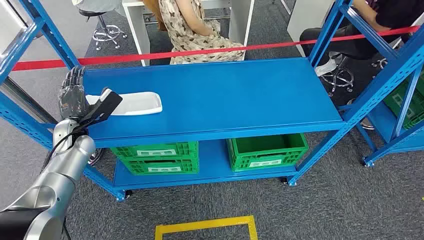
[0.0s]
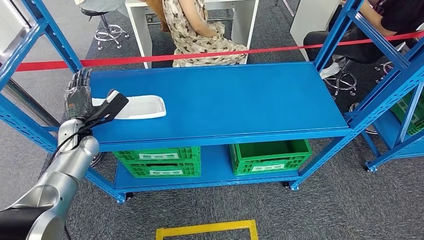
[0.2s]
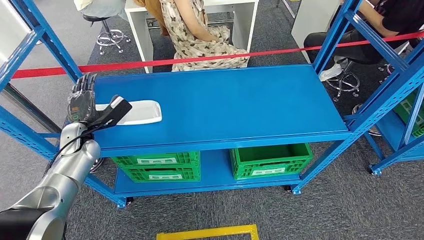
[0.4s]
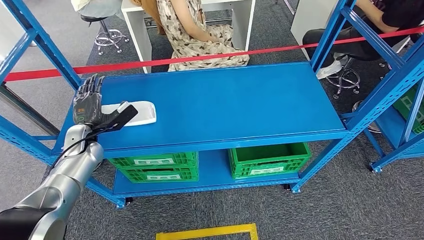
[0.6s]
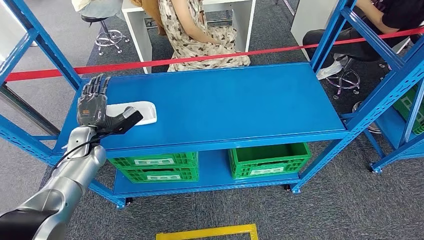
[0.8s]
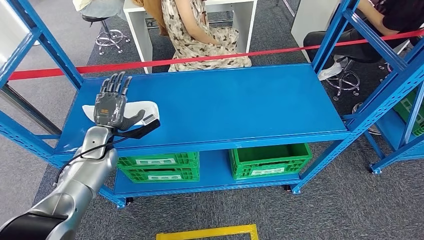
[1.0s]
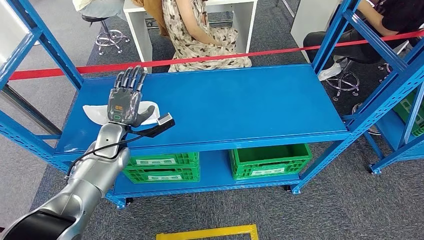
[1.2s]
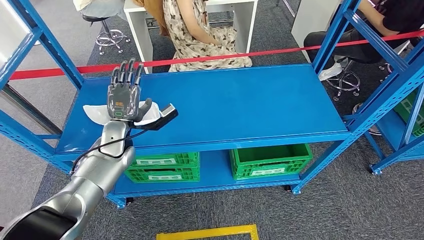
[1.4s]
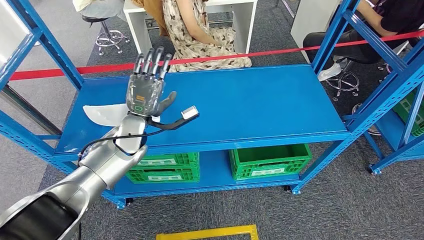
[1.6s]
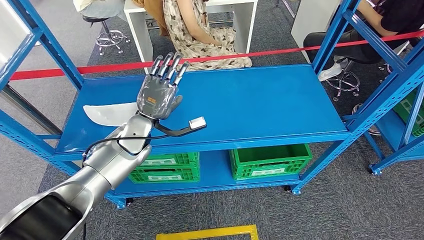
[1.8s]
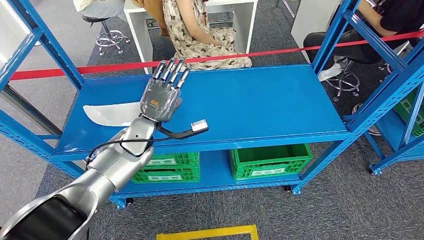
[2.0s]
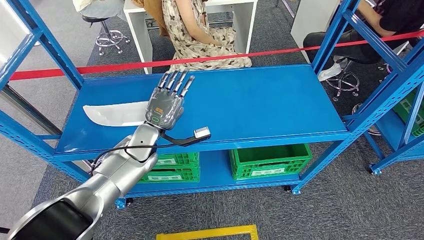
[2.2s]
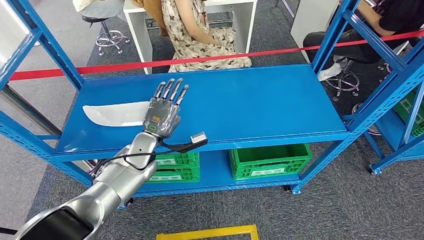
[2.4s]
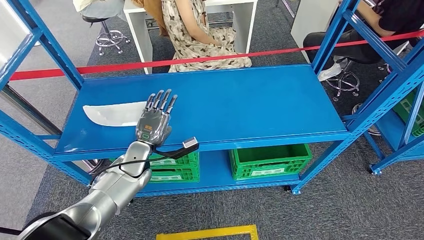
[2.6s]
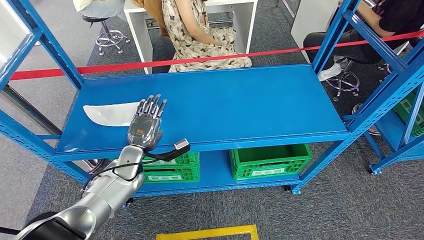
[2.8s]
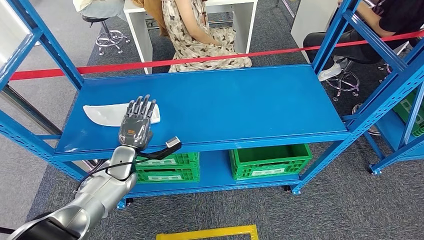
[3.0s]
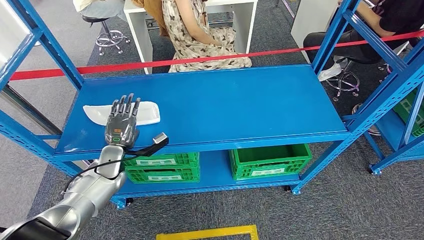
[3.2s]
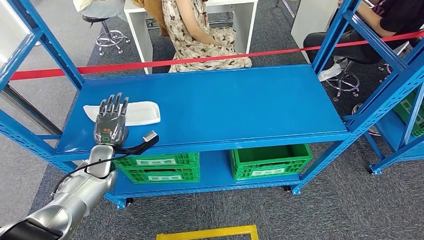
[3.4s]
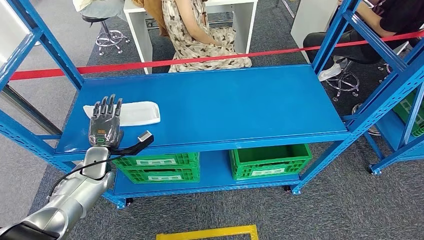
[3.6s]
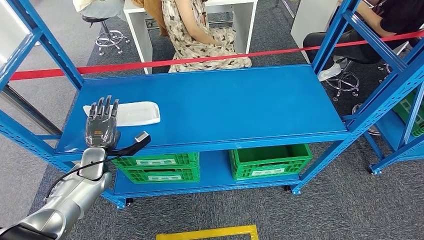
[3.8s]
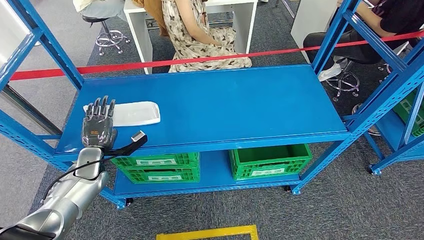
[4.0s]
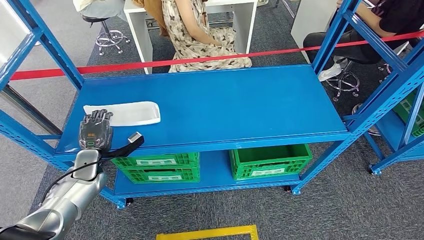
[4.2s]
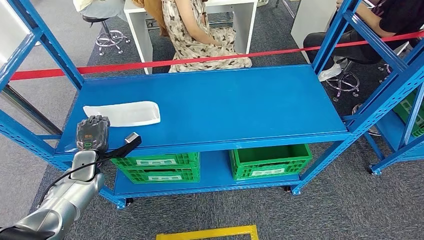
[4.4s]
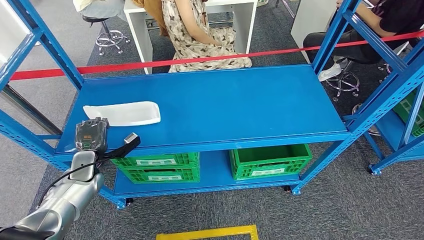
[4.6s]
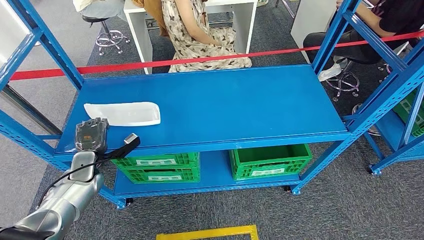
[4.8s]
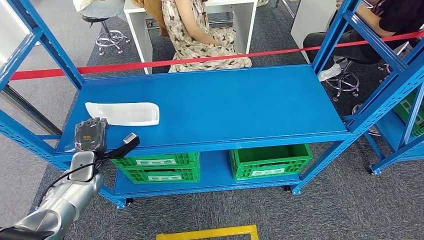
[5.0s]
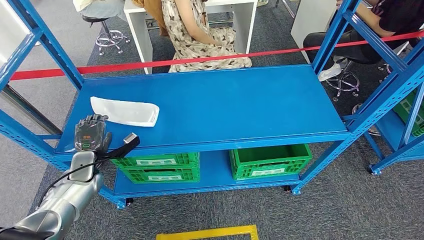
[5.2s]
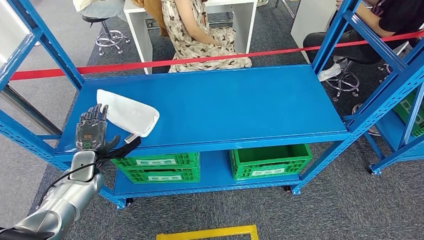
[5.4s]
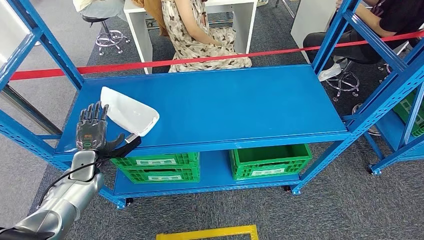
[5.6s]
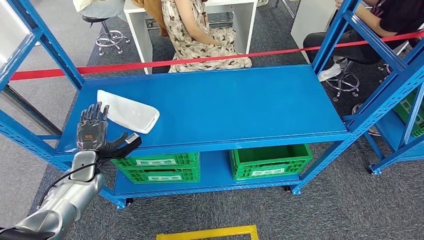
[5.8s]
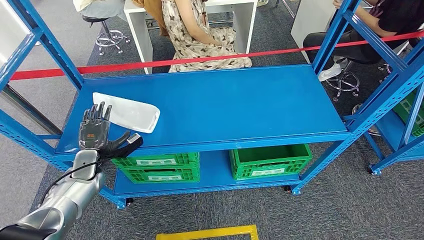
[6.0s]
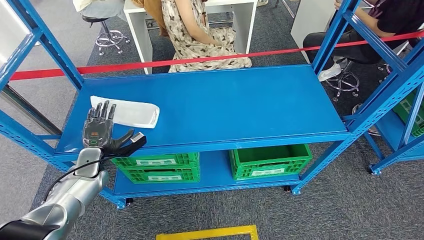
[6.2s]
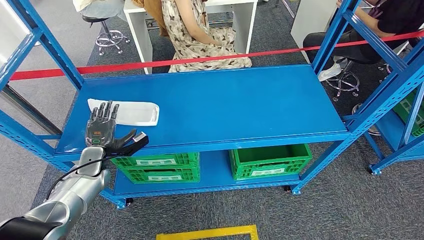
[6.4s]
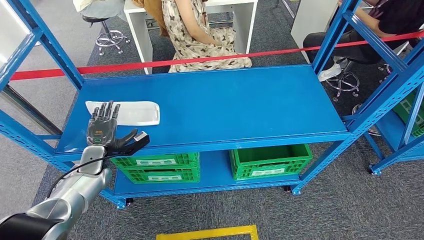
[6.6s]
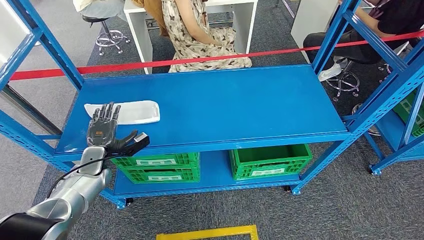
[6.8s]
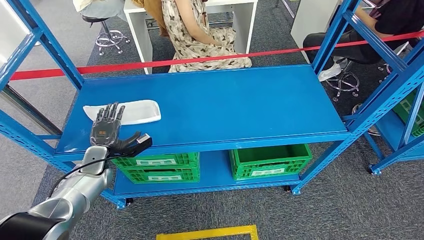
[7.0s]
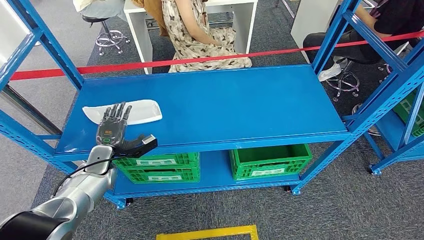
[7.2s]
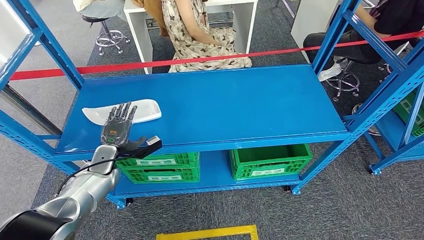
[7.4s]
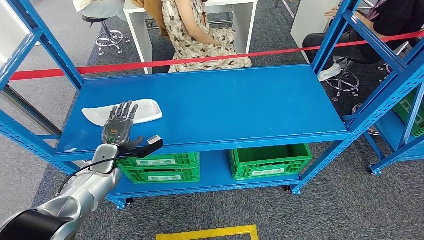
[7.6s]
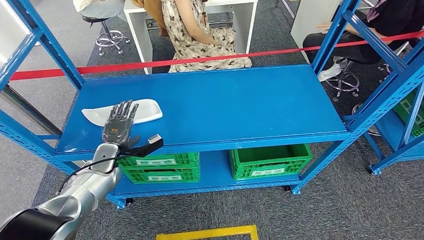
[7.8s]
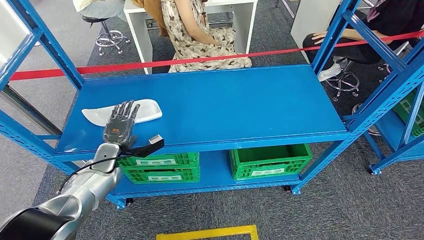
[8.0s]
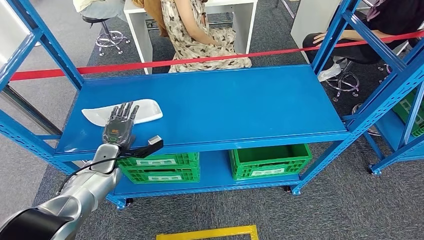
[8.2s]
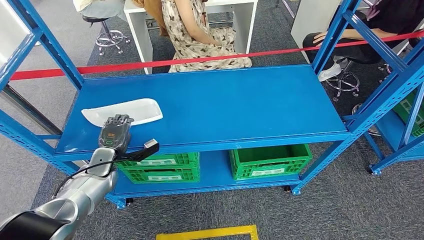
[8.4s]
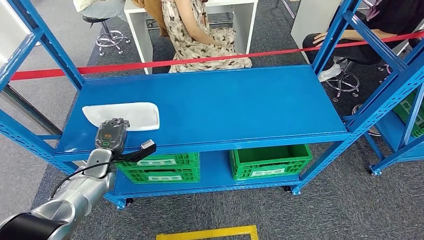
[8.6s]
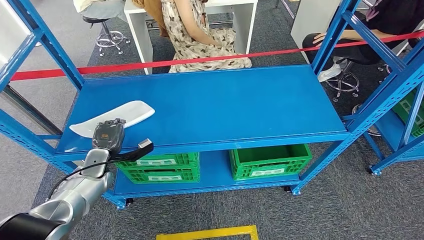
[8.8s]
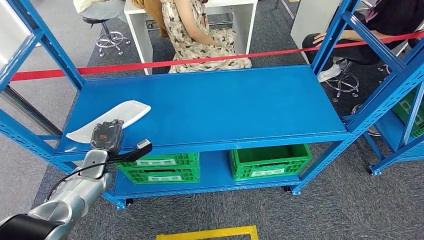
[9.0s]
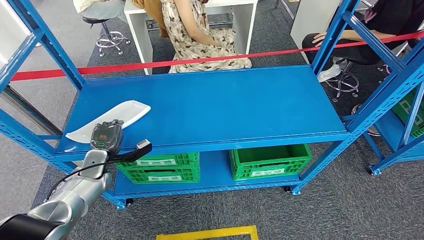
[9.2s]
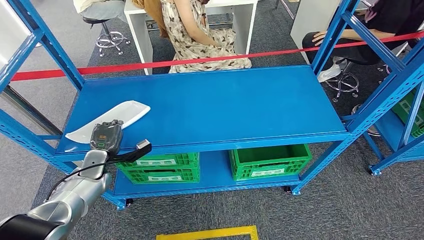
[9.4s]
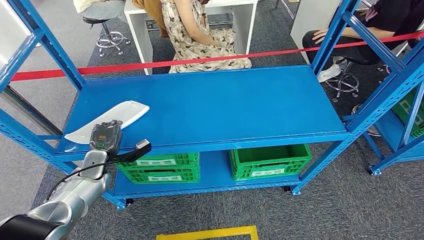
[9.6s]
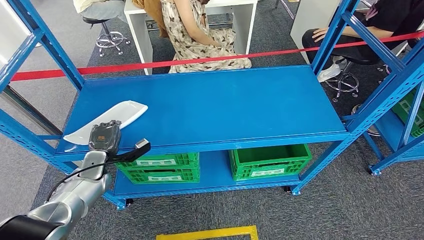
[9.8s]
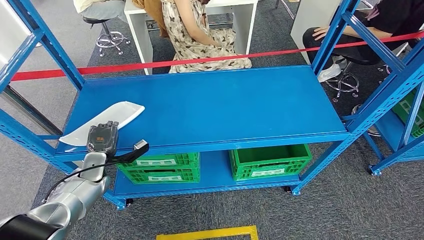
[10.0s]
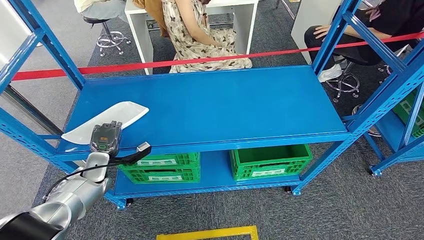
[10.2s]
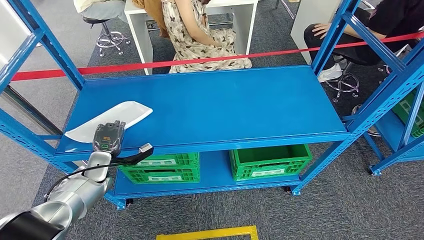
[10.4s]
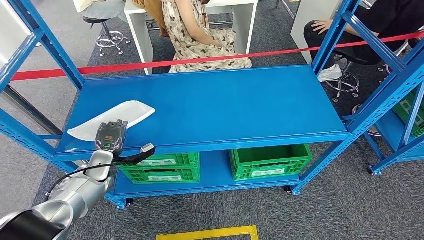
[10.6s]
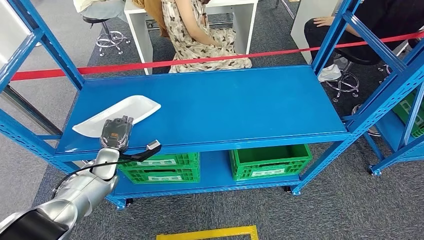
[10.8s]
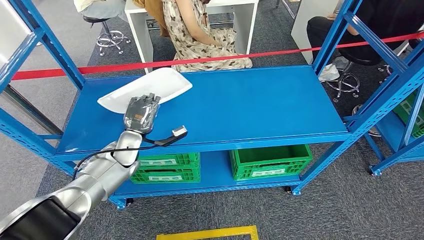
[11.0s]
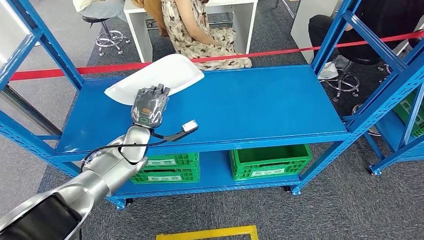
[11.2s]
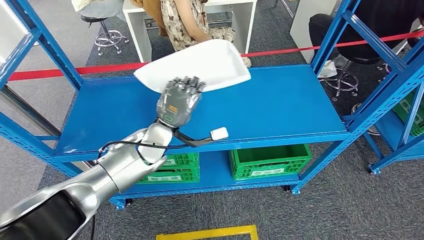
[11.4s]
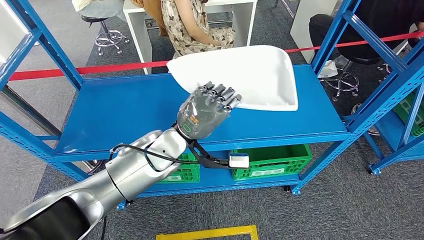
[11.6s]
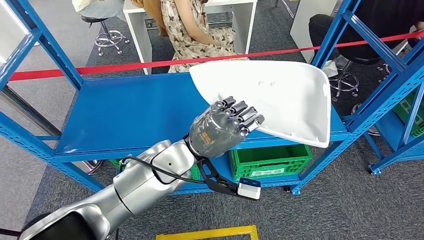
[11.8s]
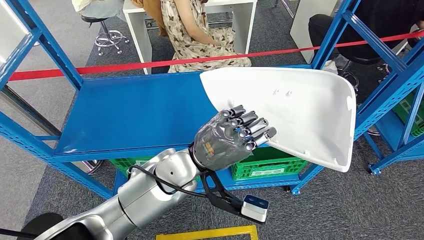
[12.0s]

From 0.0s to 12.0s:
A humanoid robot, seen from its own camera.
Step, from 0.0s to 11.2s: Pick up the small component from the shelf.
From 1.6s to 3.0s: The left hand is displaced downward by approximately 10 cm.
From 3.0s to 4.4s: The left hand is displaced to the left by about 10 cm.
From 4.4s to 6.0s: The two hands keep their place.
From 6.0s to 7.6s: The left hand changes place by some 5 cm.
From 7.6s to 10.4s: The hands stay close to where they were, moving slightly.

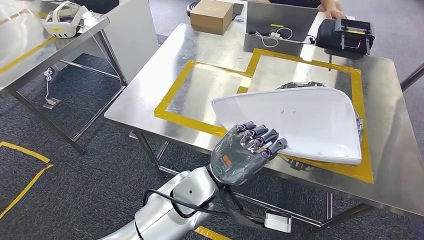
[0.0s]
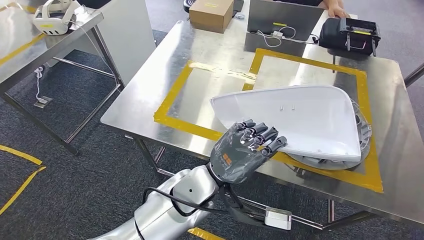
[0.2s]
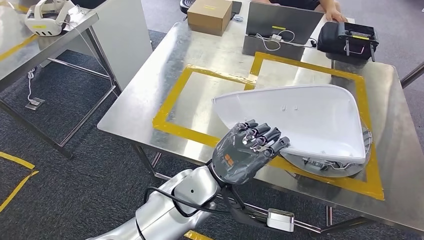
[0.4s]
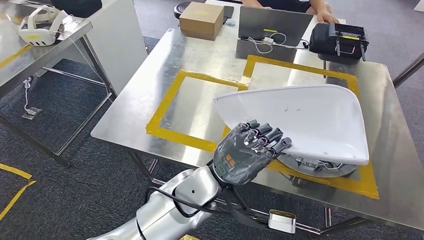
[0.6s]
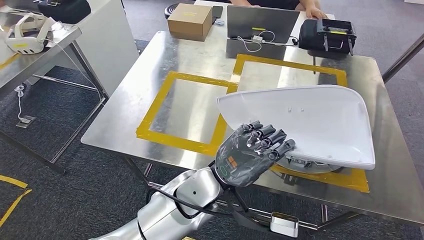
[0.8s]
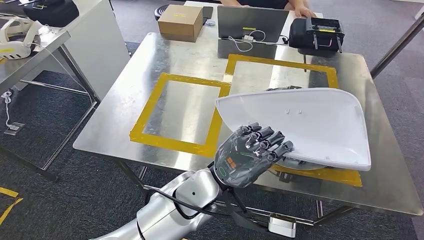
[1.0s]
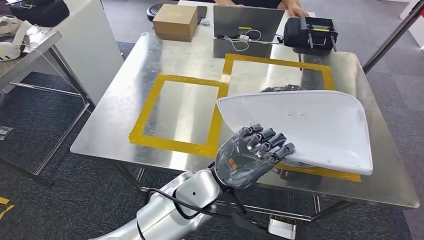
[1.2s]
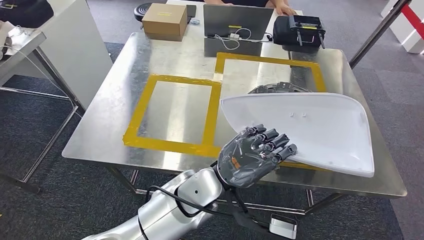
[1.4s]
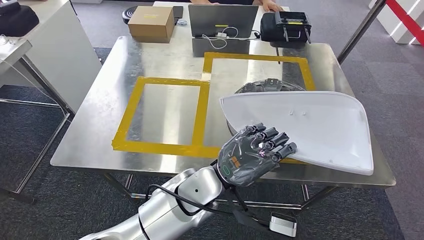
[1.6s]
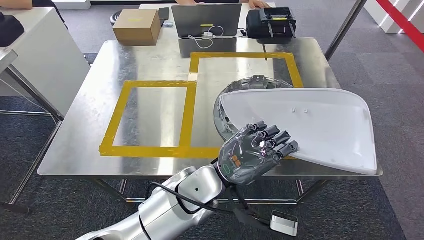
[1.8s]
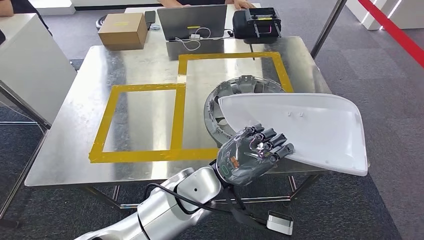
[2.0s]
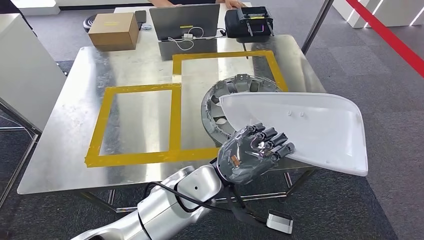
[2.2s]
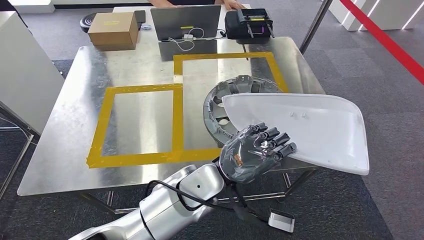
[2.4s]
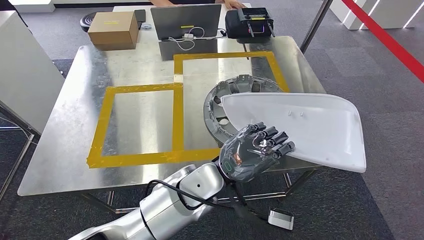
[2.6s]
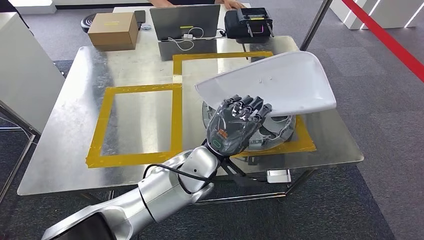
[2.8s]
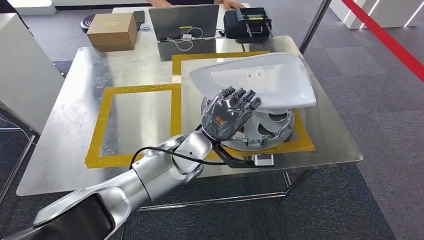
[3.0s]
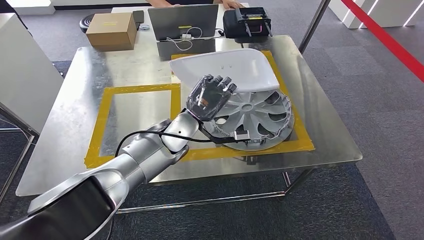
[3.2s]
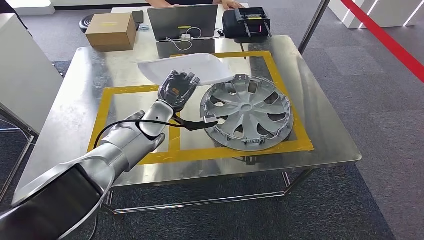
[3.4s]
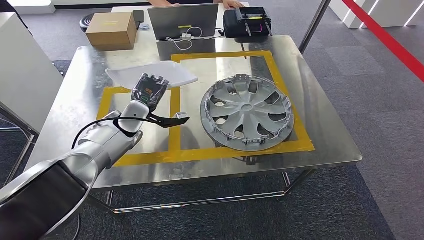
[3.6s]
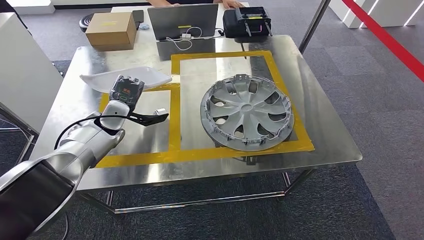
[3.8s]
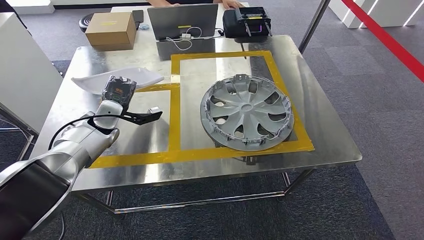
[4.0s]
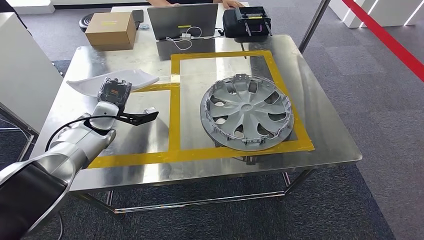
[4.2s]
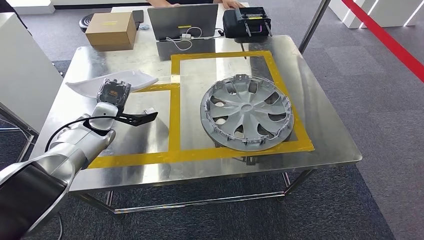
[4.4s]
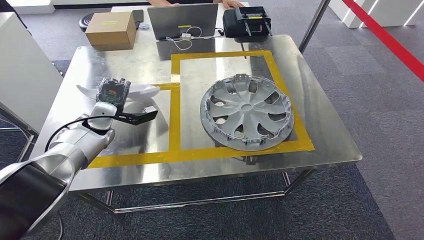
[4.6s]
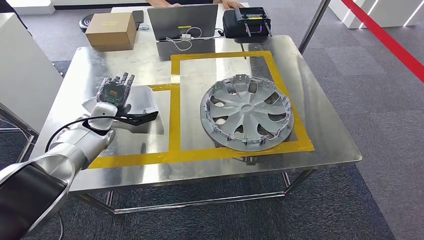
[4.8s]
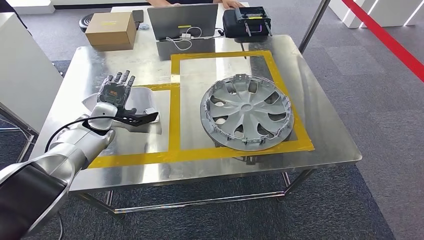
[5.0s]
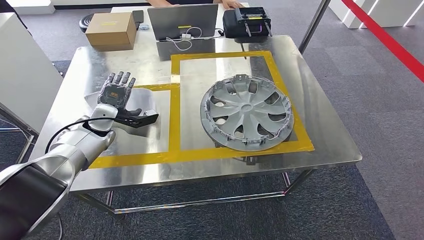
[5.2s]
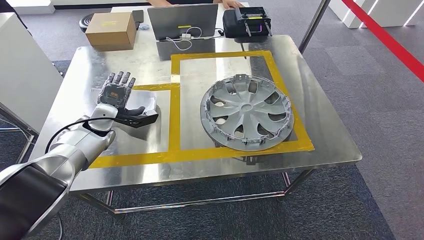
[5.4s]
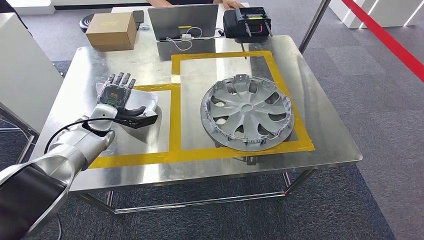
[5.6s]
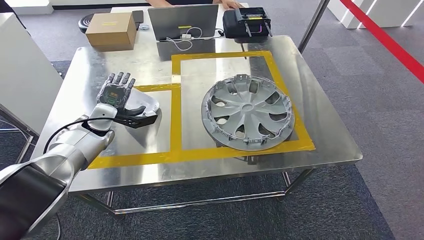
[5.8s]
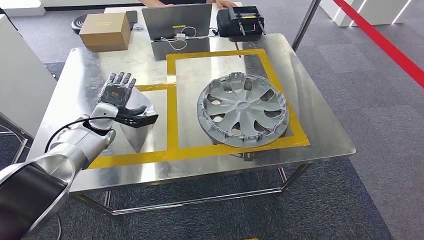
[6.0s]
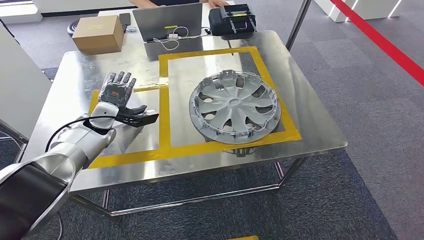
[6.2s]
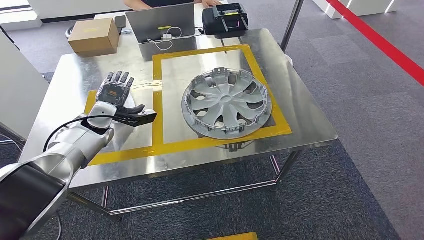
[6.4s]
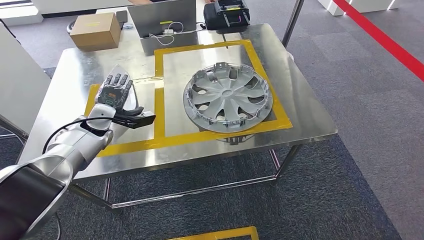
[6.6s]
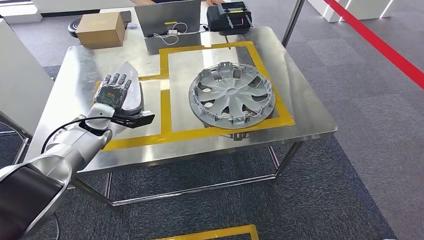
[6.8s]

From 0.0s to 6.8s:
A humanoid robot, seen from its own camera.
Step, from 0.0s to 2.0s: Bring the small component to the front of the workbench.
Step, from 2.2s to 6.8s: Insert the small component into the corresponding slot on the workbench.
From 4.0s to 5.4s: The hands stay close to where they were, moving slightly.
